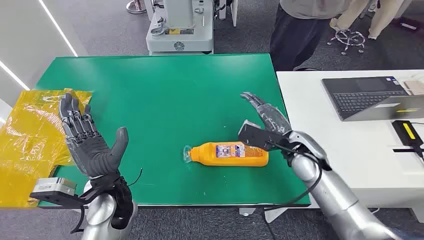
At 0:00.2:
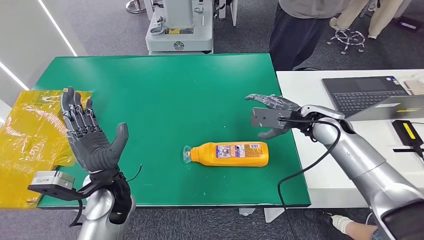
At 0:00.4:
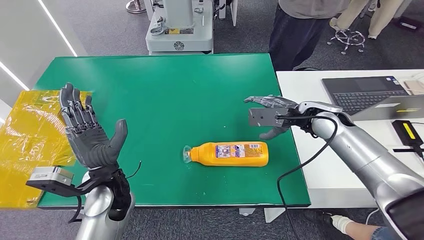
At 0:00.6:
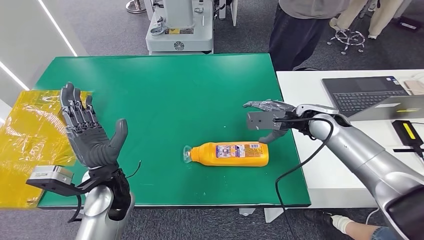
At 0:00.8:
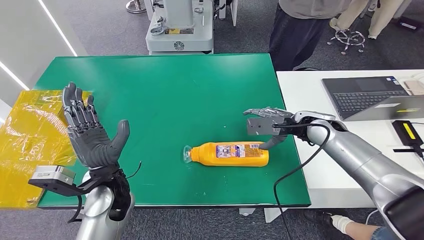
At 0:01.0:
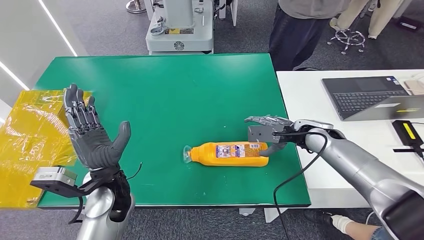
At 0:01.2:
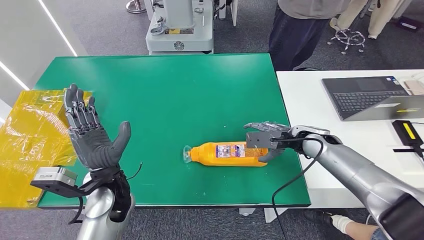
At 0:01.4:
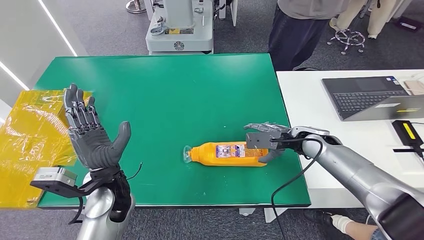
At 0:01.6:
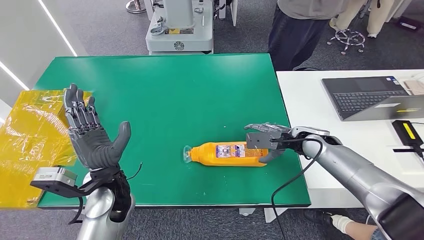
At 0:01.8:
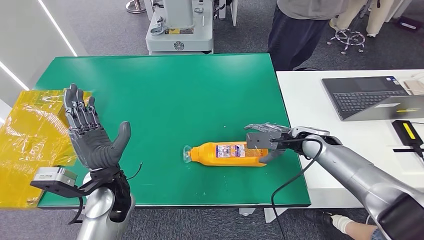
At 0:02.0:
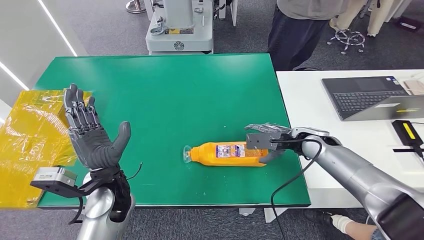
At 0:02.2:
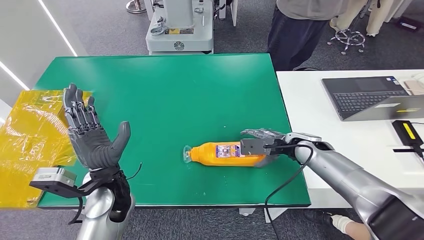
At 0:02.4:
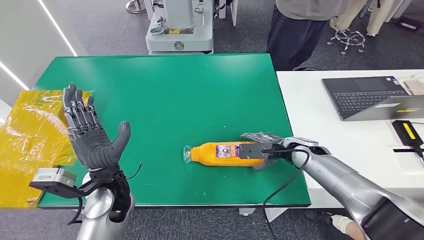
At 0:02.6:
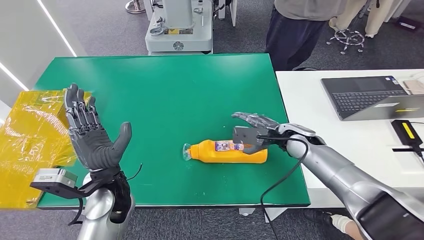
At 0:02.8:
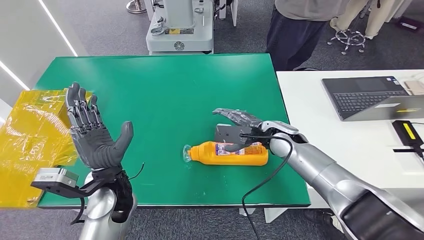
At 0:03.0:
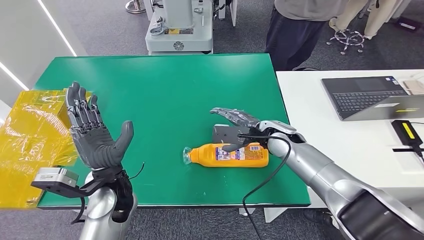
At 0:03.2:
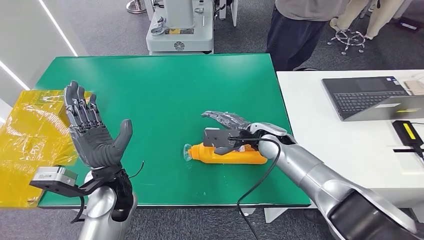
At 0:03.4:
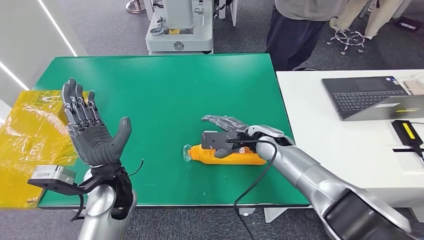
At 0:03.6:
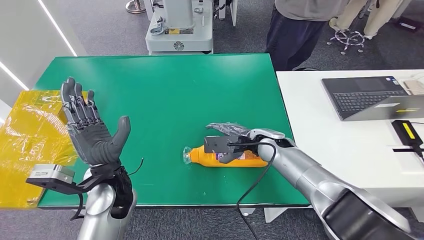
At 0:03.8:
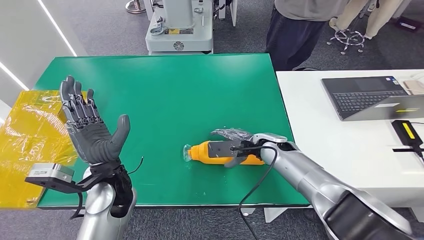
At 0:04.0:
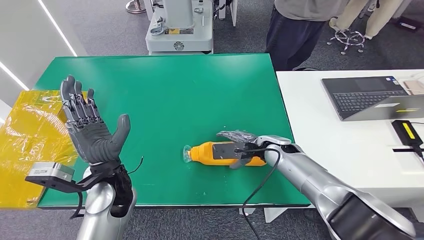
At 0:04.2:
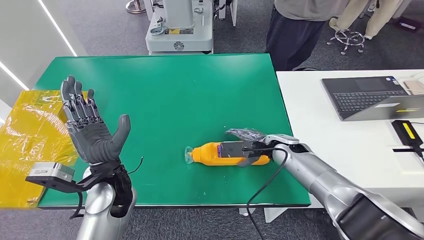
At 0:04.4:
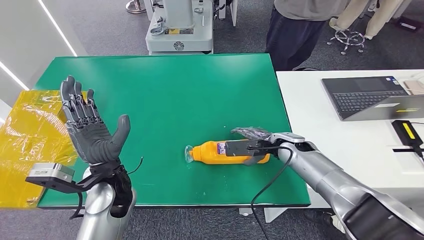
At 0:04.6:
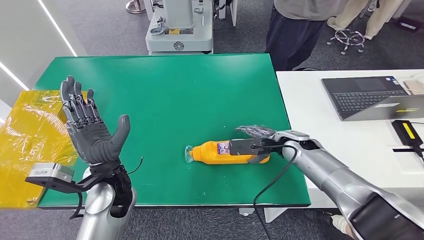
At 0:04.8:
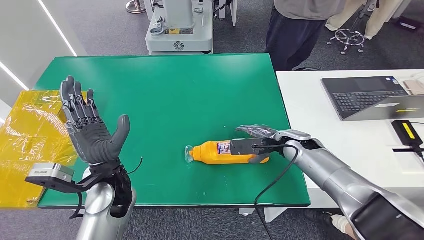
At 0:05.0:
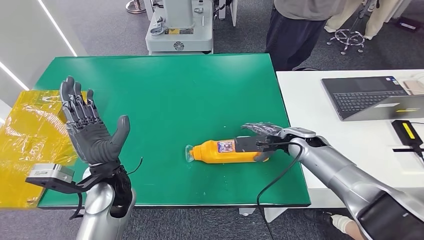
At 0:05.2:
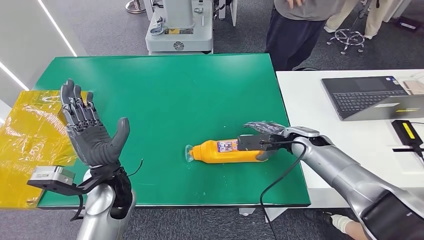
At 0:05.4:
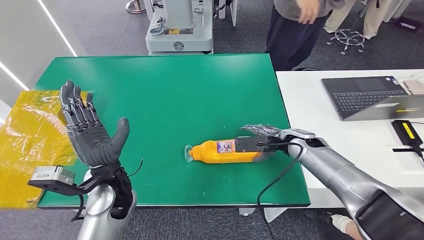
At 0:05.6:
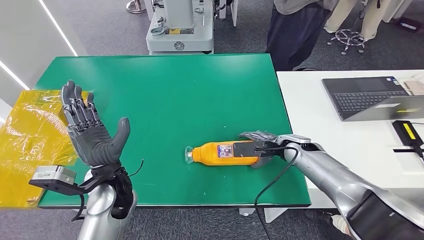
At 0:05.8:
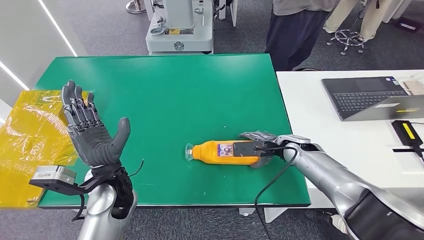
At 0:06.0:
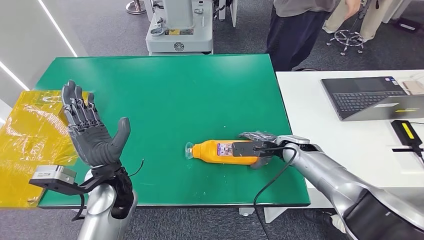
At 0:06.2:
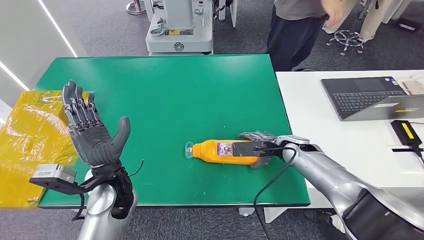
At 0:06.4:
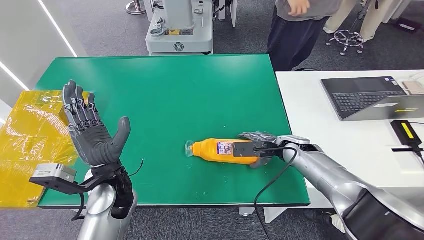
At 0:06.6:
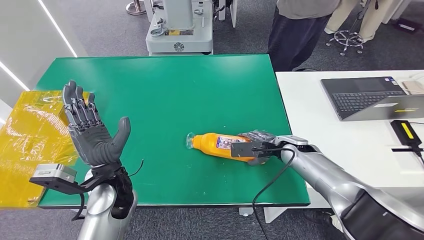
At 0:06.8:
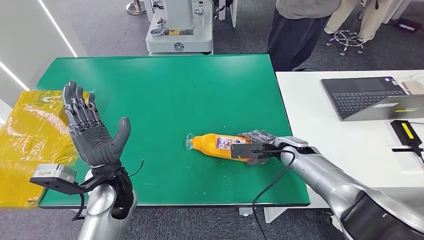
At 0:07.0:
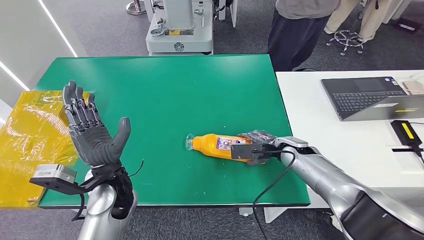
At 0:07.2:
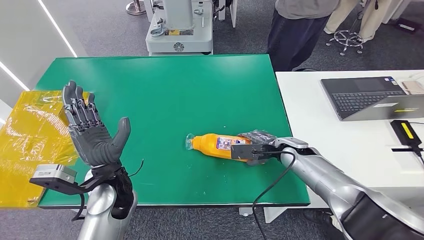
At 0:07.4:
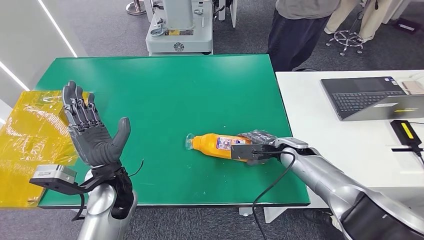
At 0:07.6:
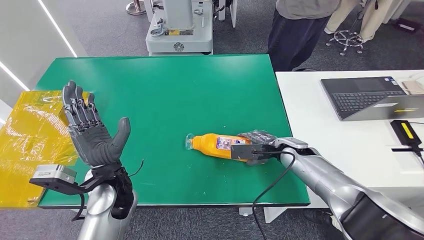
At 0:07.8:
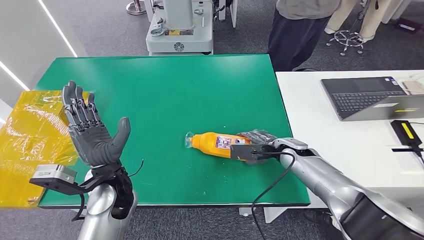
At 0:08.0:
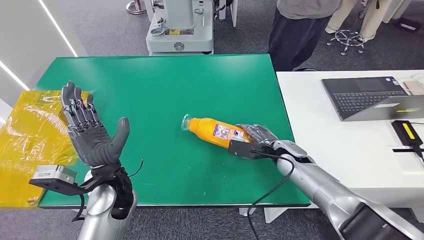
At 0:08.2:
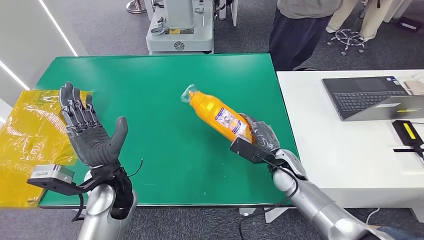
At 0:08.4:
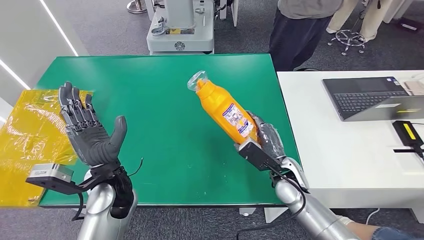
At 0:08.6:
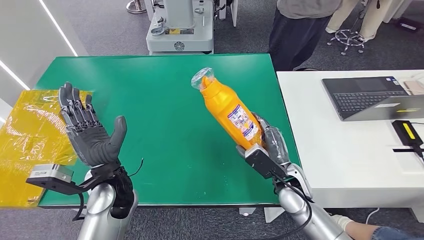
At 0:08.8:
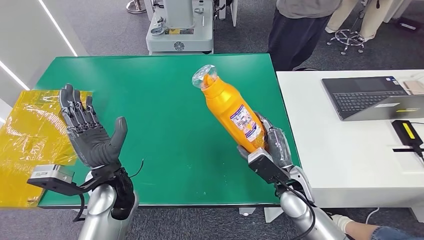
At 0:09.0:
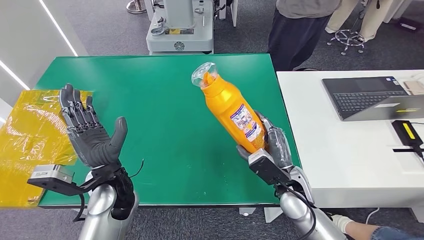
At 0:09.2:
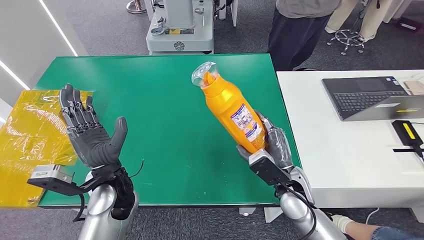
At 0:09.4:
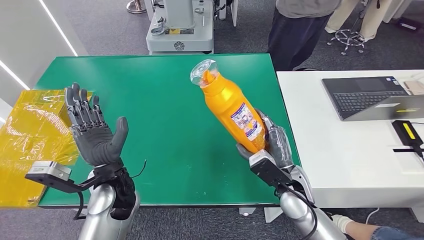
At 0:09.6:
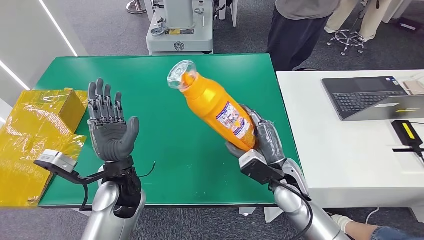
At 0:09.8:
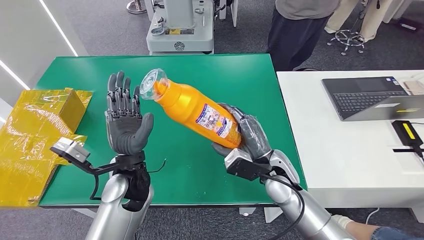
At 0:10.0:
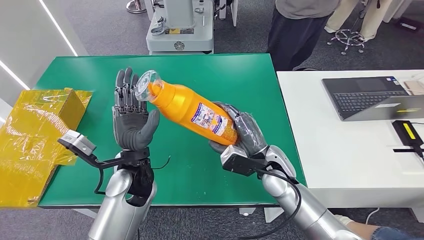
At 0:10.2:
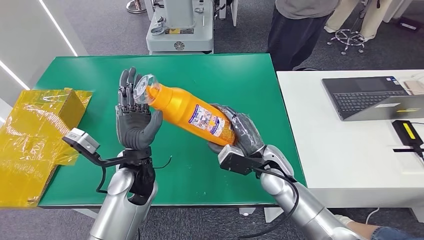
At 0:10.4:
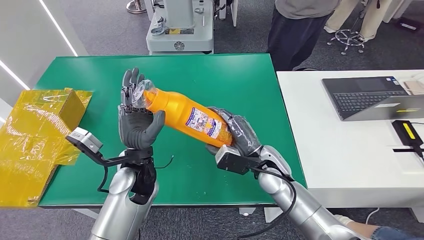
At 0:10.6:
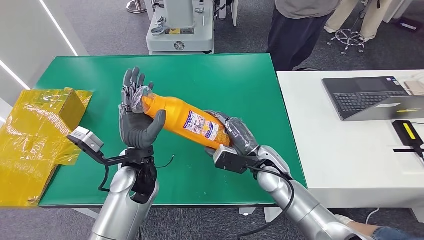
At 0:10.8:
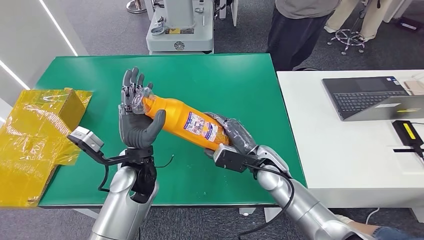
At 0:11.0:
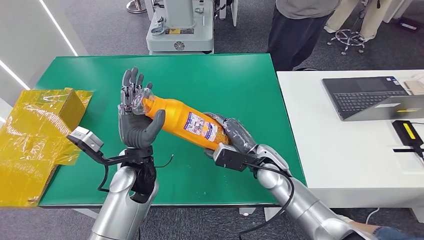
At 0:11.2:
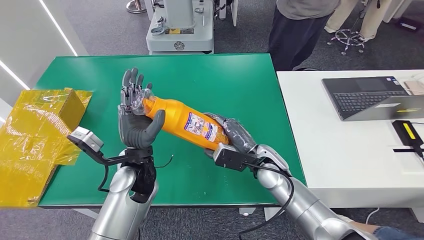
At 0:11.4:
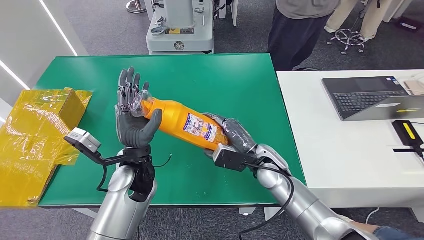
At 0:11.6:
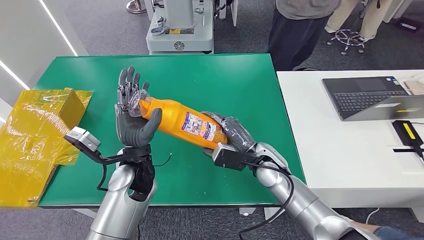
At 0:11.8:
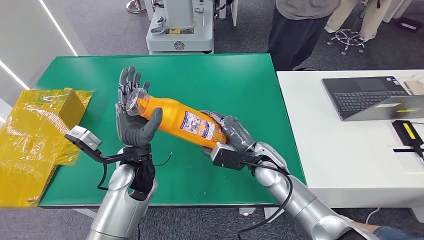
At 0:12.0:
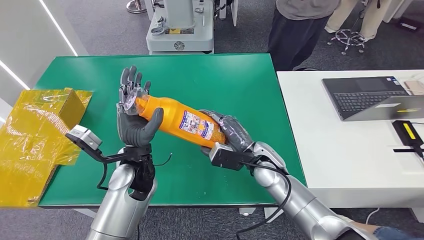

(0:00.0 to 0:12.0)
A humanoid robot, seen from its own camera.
Step, 0:00.0 - 0:08.6: Pick up the bottle from the table.
0:01.6 - 0:03.0: The right hand shifts some 10 cm to the left.
0:03.0 - 0:04.4: The right hand moves approximately 5 cm.
0:04.4 - 0:07.6: There are only small adjustments of the hands.
0:07.6 - 0:09.0: The right hand moves backward and to the left, some 15 cm.
0:09.0 - 0:10.4: The right hand goes roughly 5 cm forward. The left hand moves about 5 cm.
0:10.4 - 0:12.0: The hands move only a little.

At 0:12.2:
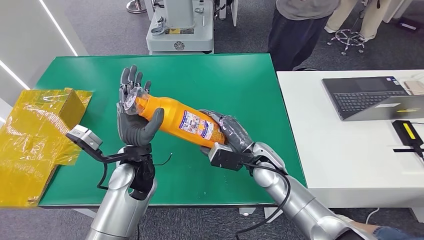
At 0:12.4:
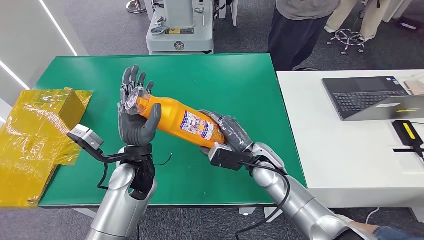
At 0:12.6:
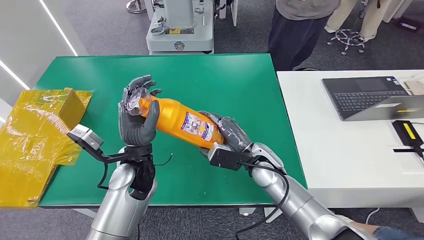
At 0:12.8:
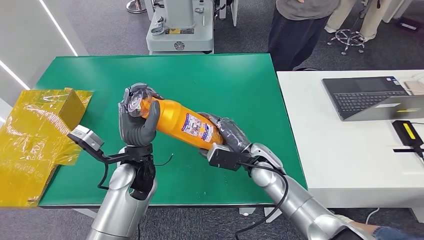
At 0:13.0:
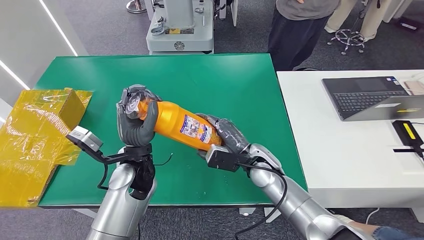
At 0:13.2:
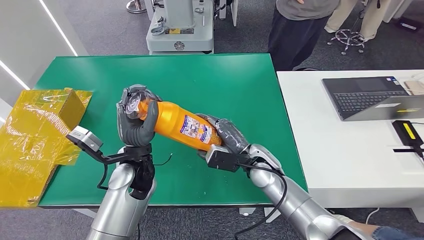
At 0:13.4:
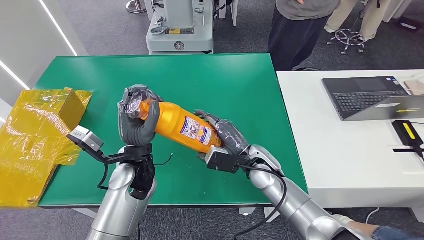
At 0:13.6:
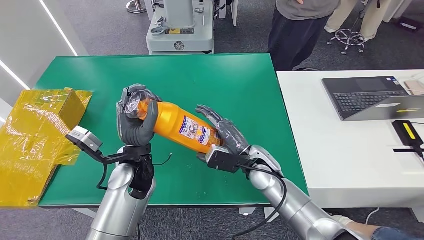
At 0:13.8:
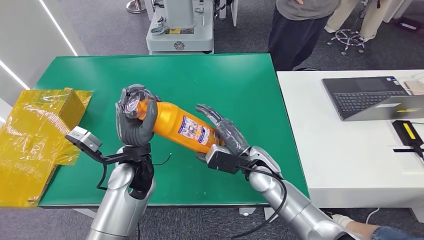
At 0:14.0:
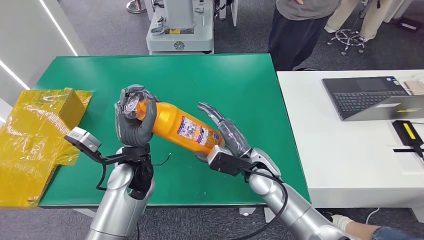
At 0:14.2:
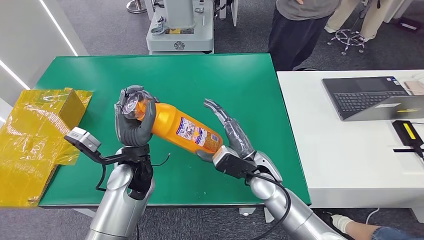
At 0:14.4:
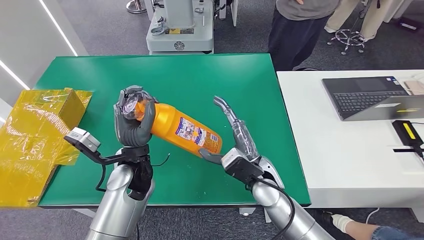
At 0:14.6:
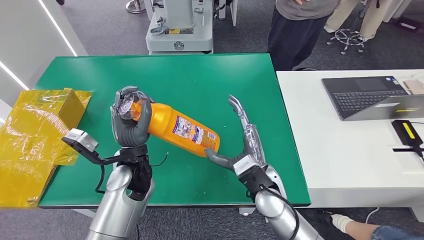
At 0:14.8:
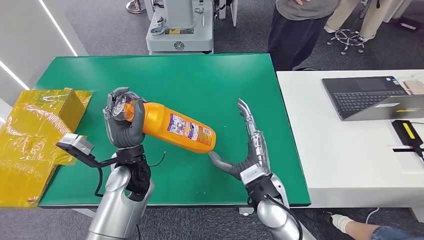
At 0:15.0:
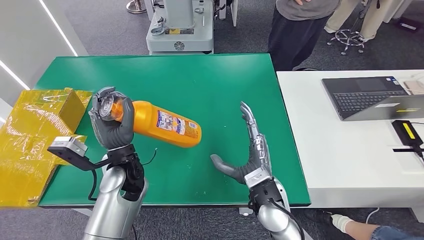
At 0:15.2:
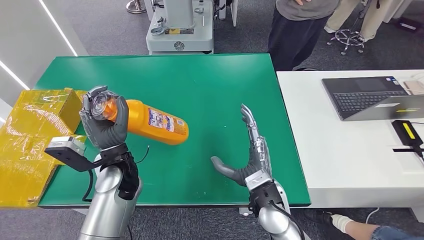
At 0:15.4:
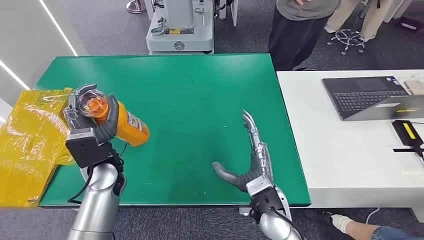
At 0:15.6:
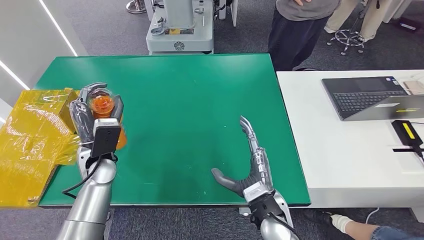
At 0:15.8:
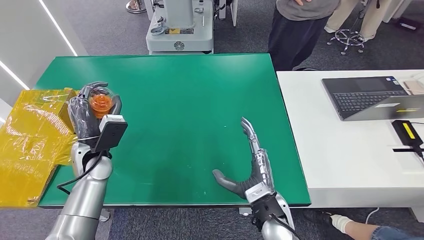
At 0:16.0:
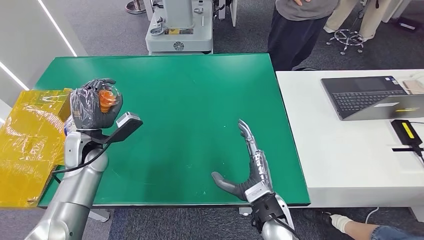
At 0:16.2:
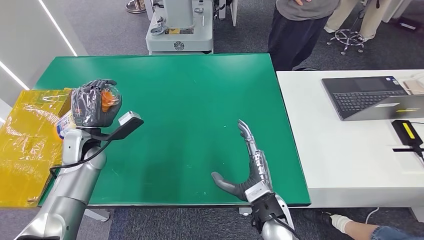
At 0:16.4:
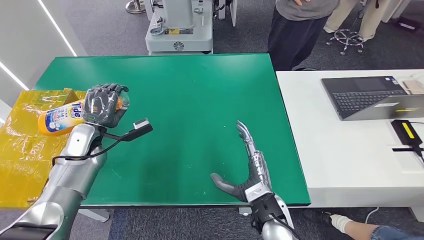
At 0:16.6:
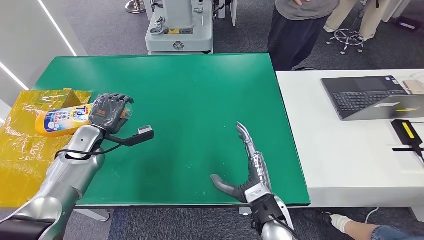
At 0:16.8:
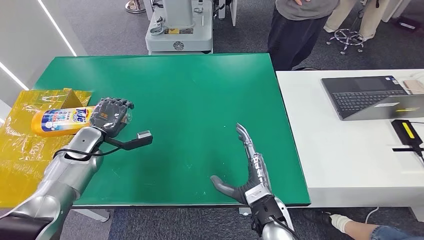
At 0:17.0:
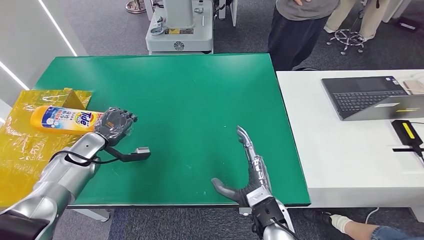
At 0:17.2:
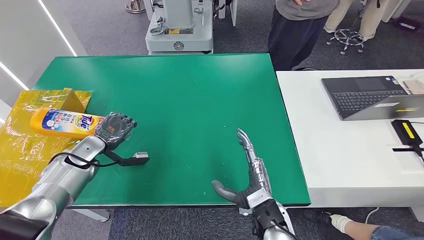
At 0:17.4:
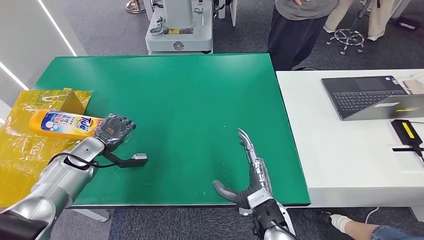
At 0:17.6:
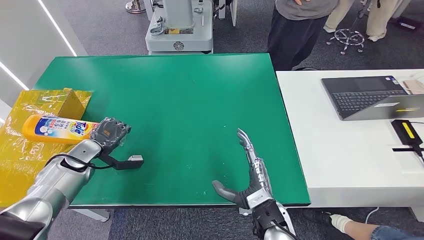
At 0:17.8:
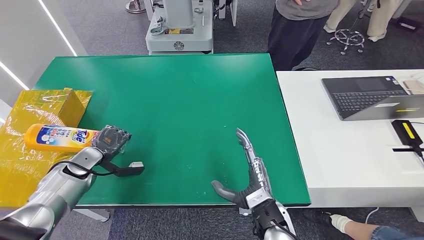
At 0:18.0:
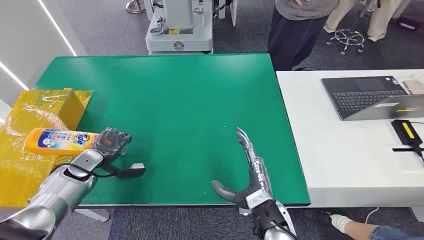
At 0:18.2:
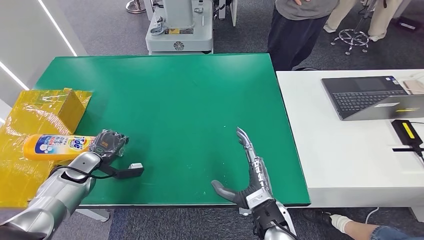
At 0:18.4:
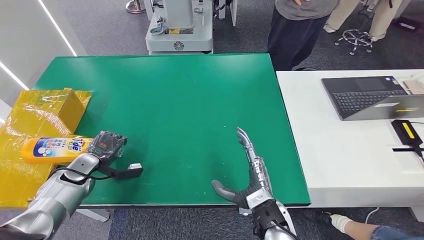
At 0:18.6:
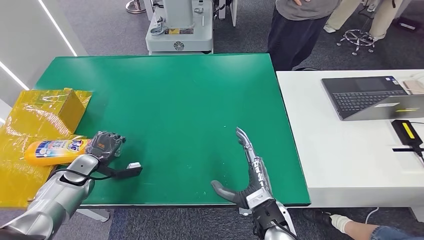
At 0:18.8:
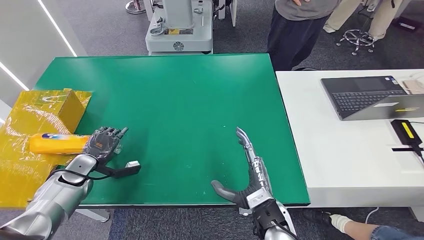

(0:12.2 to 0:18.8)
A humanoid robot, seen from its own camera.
0:12.2 - 0:13.8: The hands stay close to where they were, moving slightly.
0:13.8 - 0:15.4: The left hand heads to the left, covering about 5 cm, while the right hand heads backward, covering some 10 cm.
0:15.4 - 0:17.2: The left hand travels to the left, forward and downward by some 20 cm.
0:17.2 - 0:18.8: The left hand ends up approximately 5 cm from where it was.
